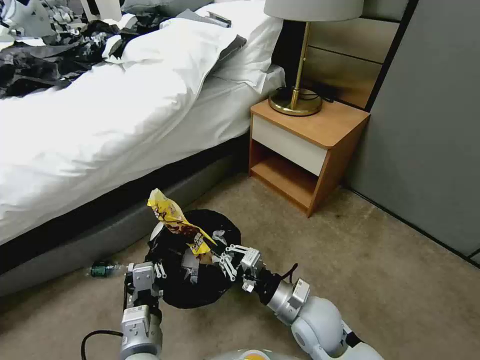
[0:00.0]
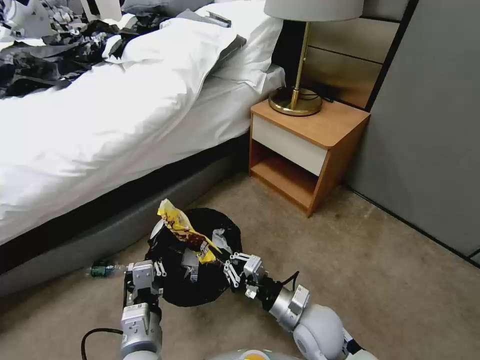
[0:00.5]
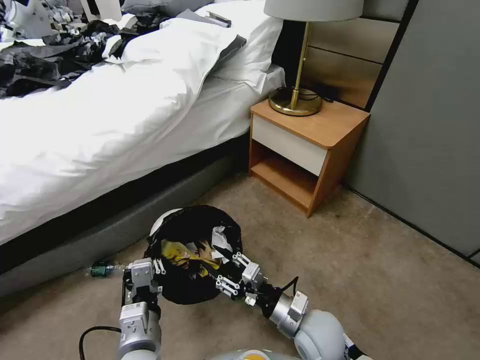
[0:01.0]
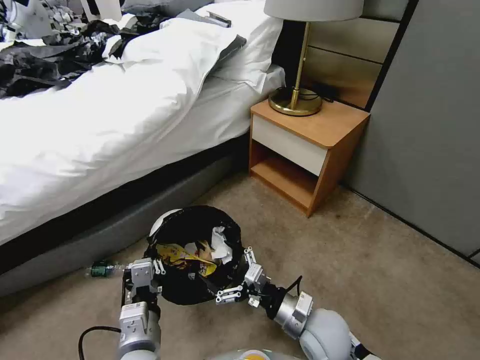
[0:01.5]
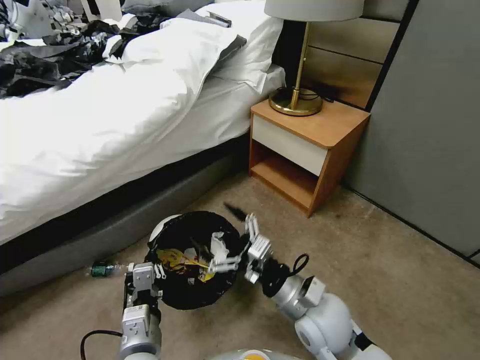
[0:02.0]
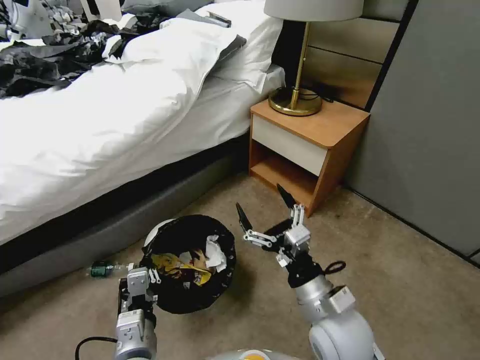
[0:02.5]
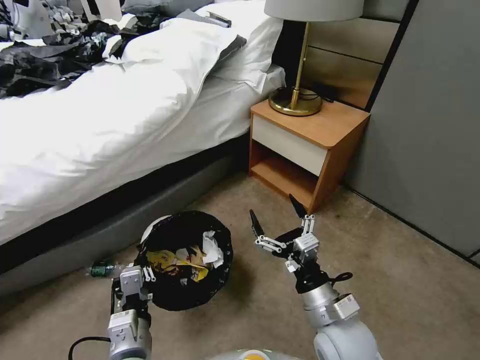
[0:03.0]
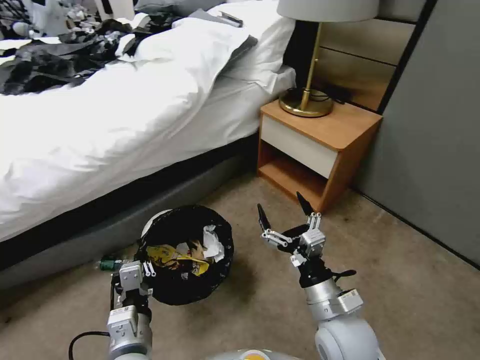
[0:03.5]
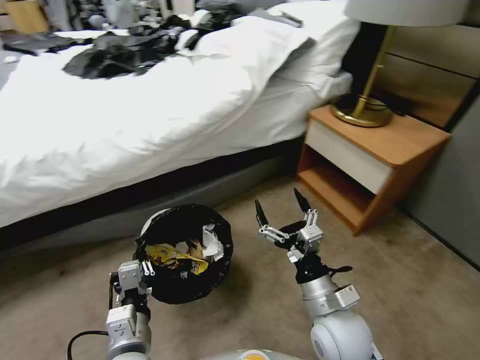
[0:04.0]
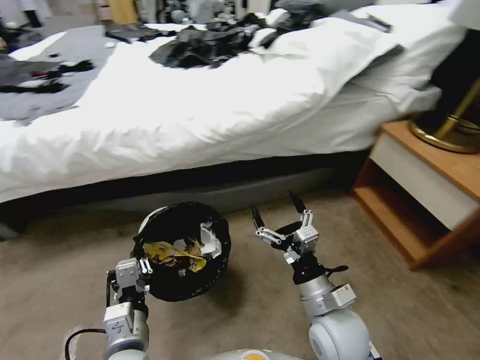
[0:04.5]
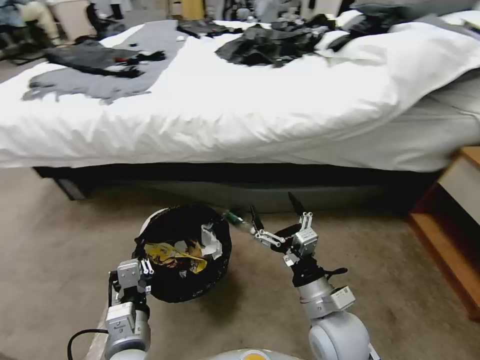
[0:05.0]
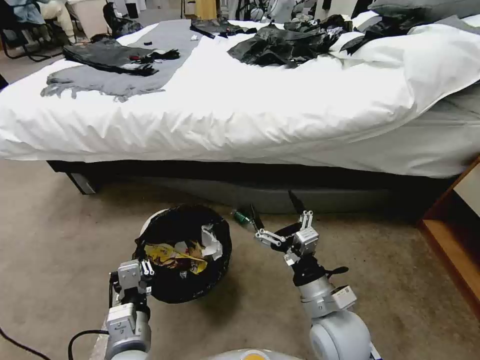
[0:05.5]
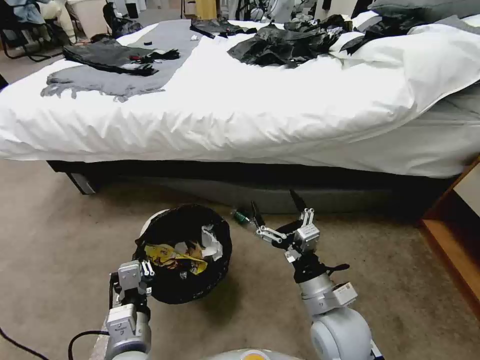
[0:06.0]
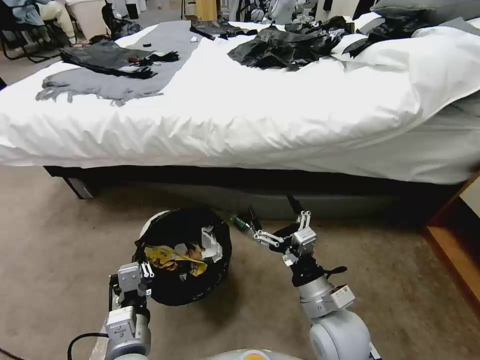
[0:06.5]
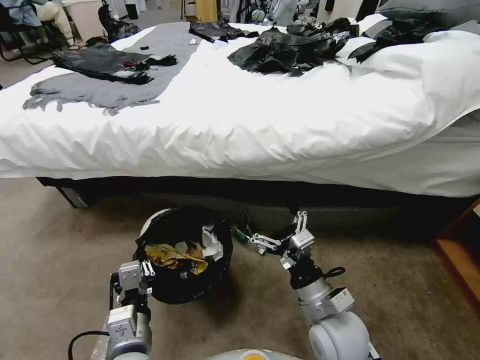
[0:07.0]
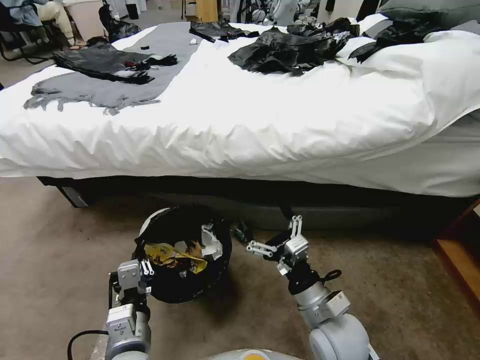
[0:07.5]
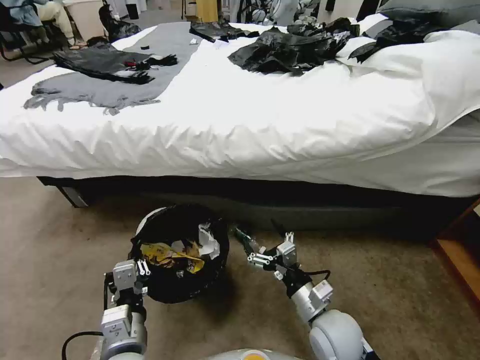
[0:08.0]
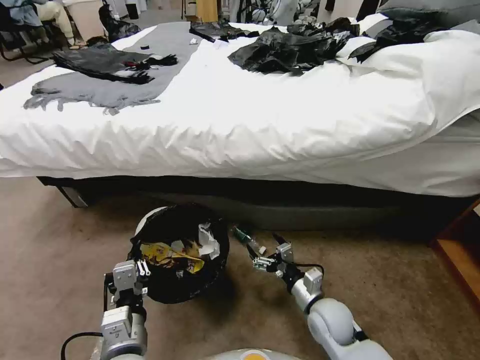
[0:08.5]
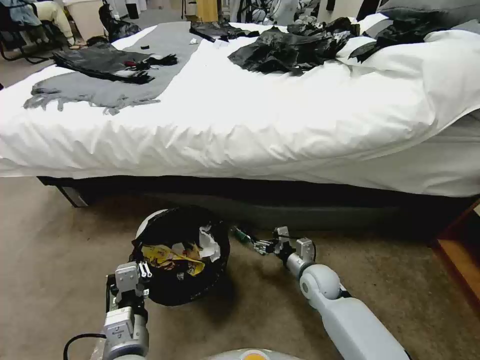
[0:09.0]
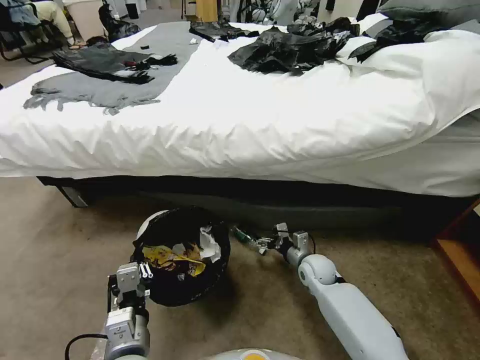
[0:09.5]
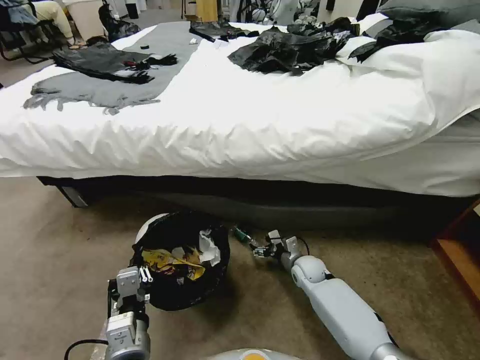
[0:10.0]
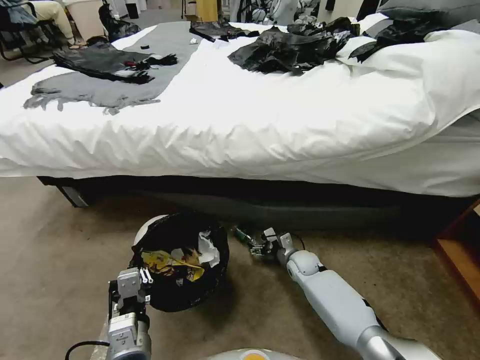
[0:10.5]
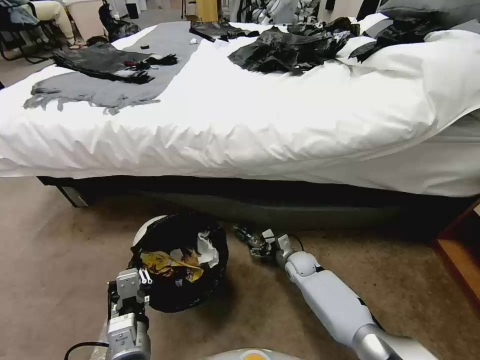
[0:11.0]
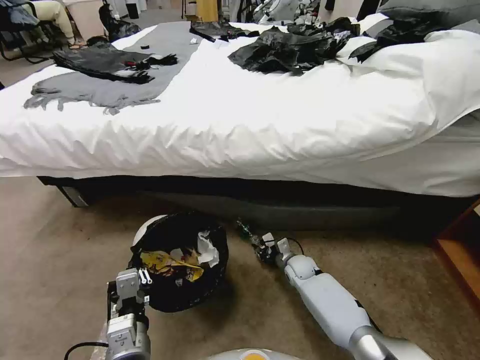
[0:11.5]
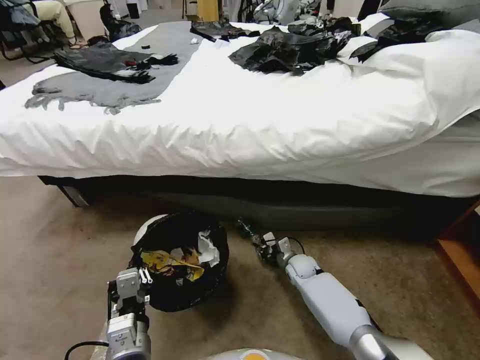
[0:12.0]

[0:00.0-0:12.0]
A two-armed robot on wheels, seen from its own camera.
Task of the whole recording: Pick up the trash bin, then pick up the garbage from the floor and place it into the trash bin.
0:00.0 to 0:02.0: The right gripper shifts roughly 5 cm upward, and opens.
0:06.0 to 0:08.0: The right gripper moves downward, some 5 cm.
0:08.0 to 0:10.0: The right gripper is displaced forward and downward by roughly 20 cm.
0:10.0 to 0:12.0: The right gripper closes.

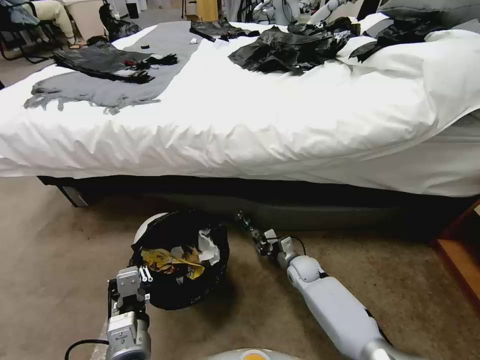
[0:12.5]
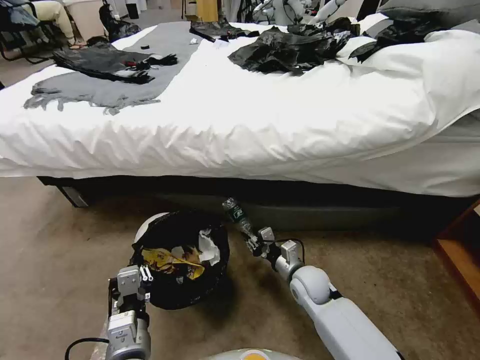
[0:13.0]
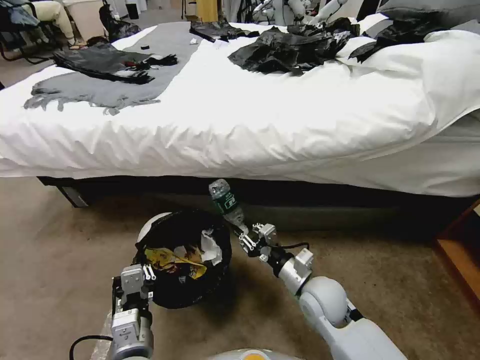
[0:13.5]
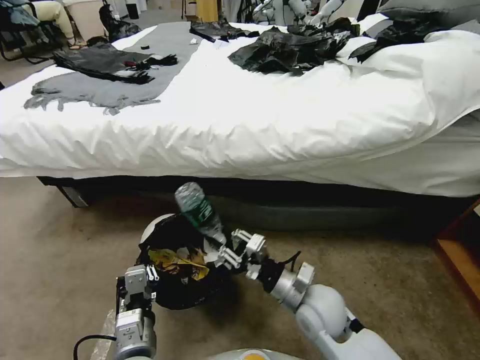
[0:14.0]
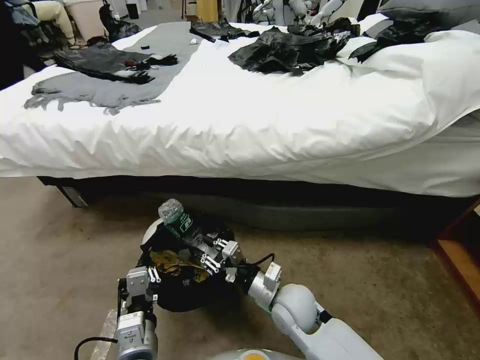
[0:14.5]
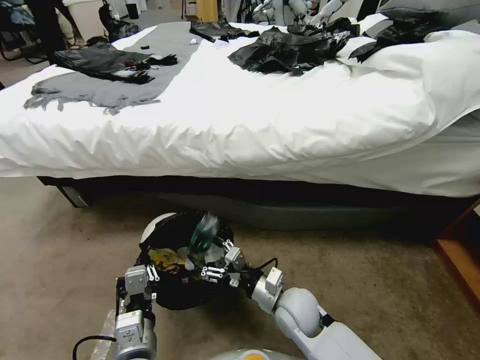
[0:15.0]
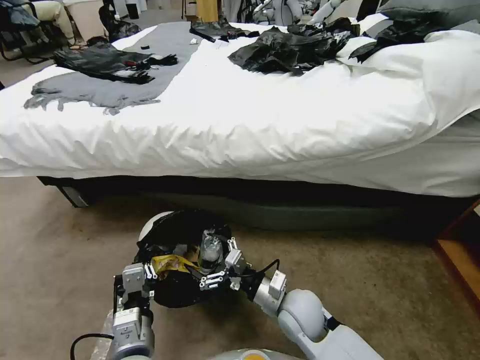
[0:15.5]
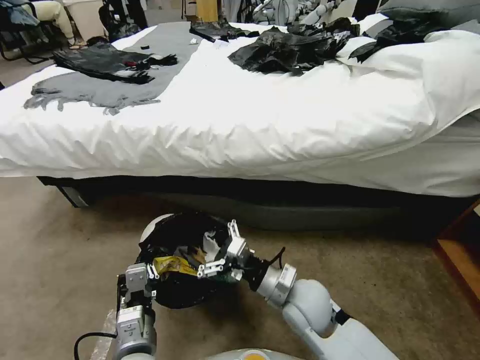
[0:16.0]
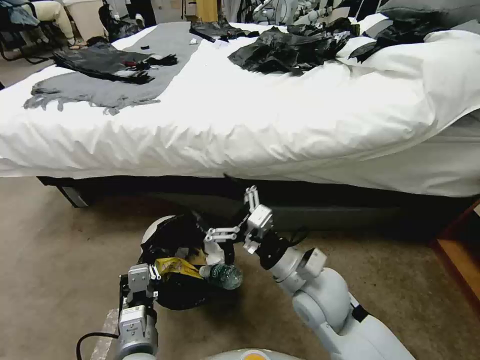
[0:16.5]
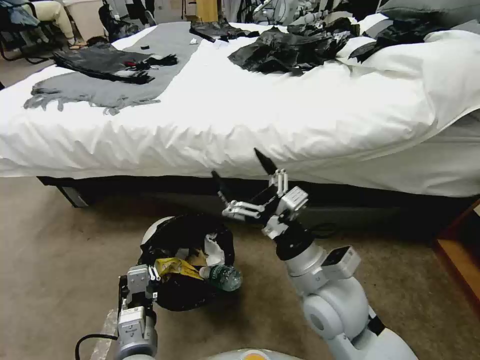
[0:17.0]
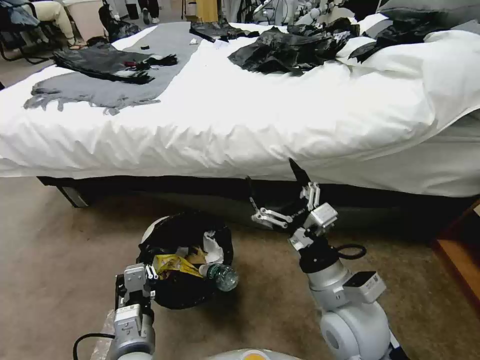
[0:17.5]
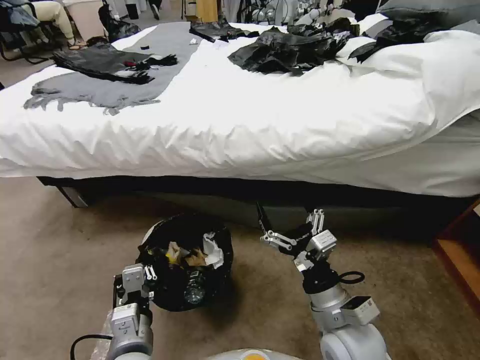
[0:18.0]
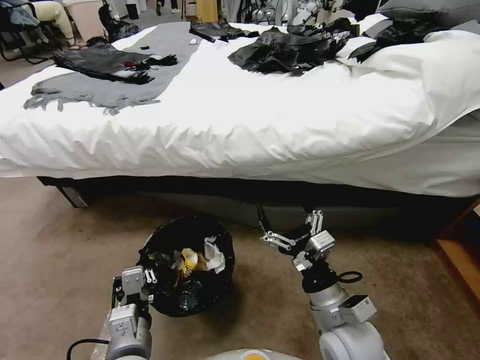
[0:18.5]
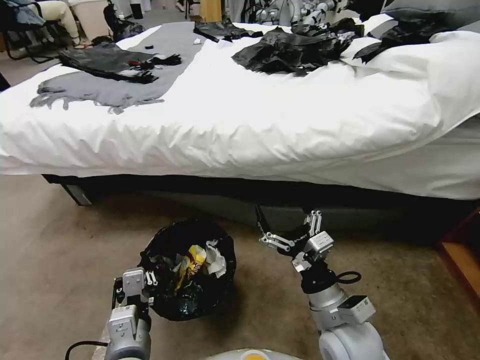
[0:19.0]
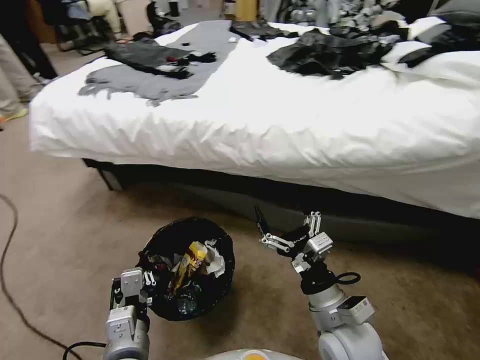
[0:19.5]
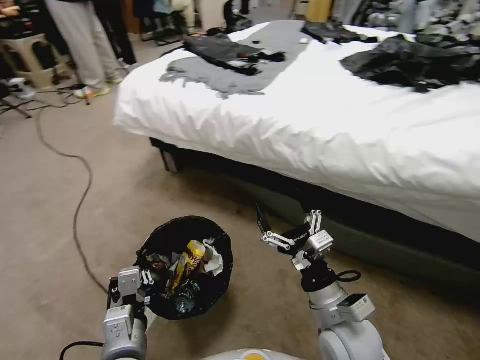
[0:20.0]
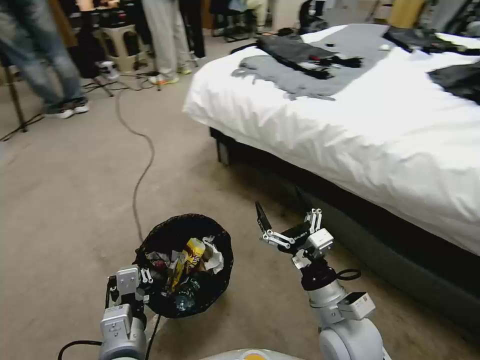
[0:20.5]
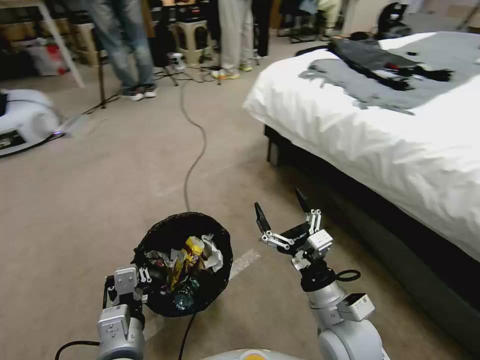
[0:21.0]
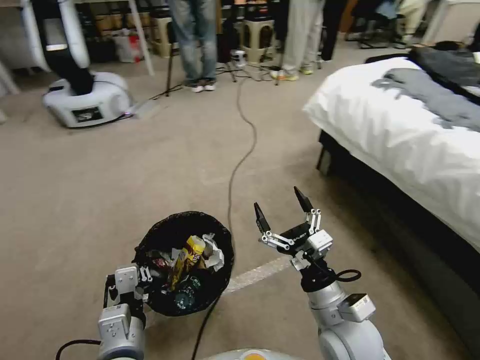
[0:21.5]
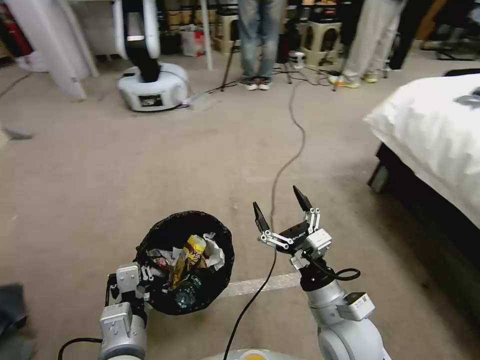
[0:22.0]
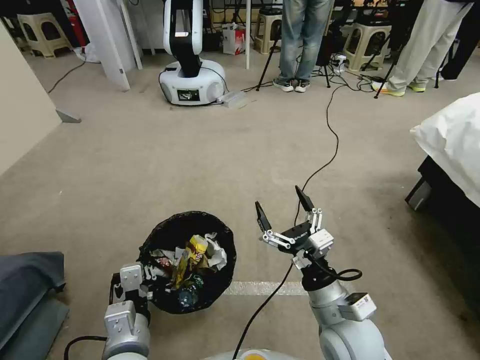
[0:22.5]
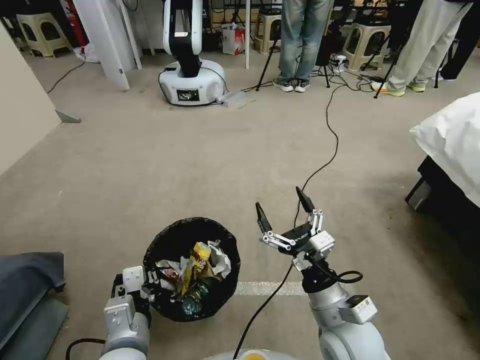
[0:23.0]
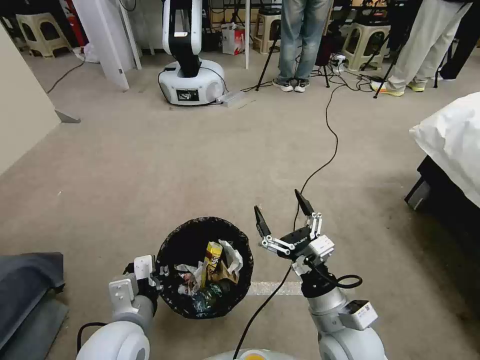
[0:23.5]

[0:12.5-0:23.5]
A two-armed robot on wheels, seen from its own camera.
Task of the whole recording: Pick up the trash bin, then pick up the garbage from the floor and place it into the trash bin.
0:12.5 to 0:14.5: The right gripper travels upward, backward and to the left by approximately 20 cm.
0:14.5 to 0:16.0: The right gripper opens up.
0:16.0 to 0:18.0: The right gripper heads backward and to the right, covering about 10 cm, and goes upward and returns, some 10 cm each way.
0:21.5 to 0:23.5: The left gripper shifts by some 5 cm.

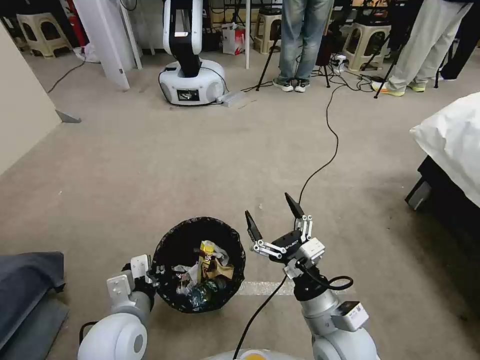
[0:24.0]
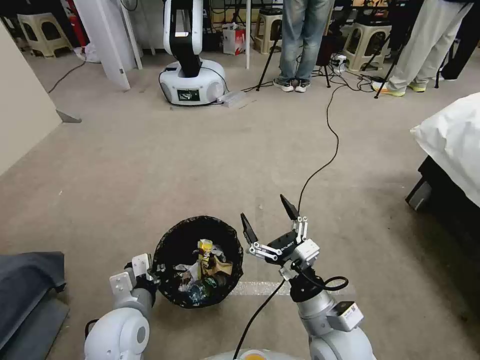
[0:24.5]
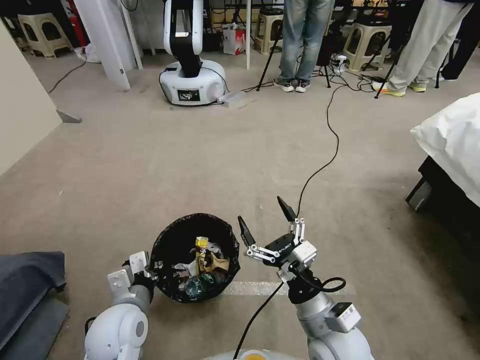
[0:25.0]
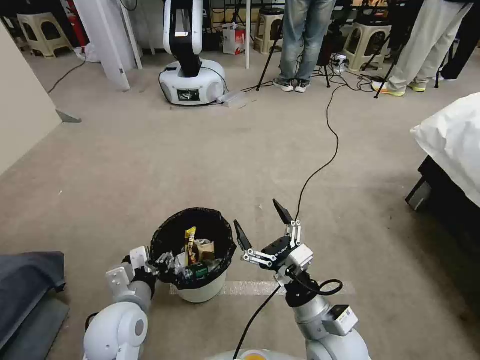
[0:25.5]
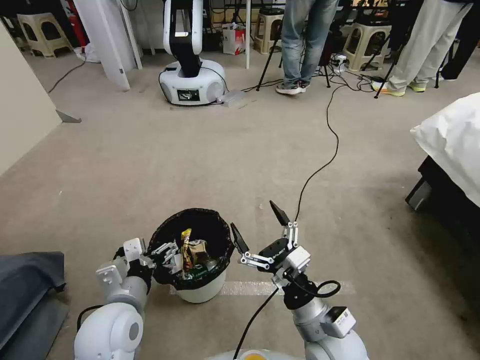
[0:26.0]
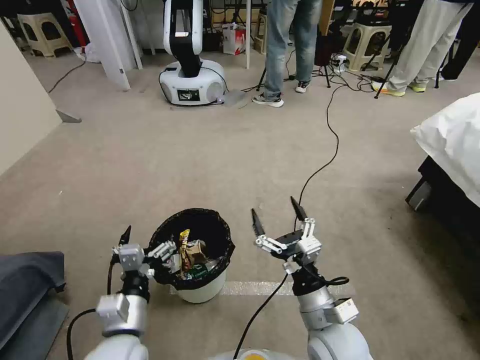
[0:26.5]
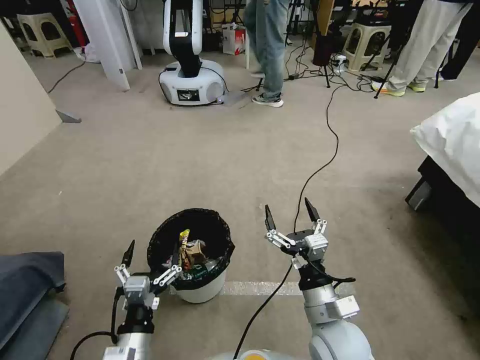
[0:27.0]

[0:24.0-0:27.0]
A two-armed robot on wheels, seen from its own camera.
Task of the whole recording: Pick up the trash bin, then pick up the garbage from the floor and place it into the trash bin.
0:24.0 to 0:25.5: The left gripper opens its fingers.
0:25.5 to 0:27.0: The left gripper heads backward and downward, covering some 10 cm, and opens its fingers.
